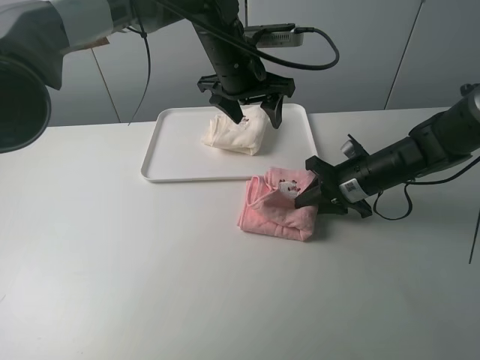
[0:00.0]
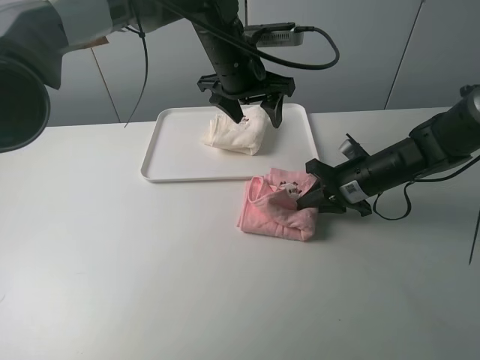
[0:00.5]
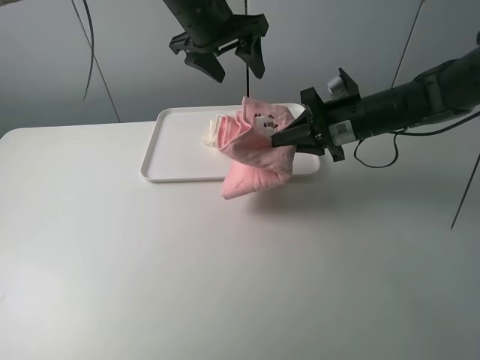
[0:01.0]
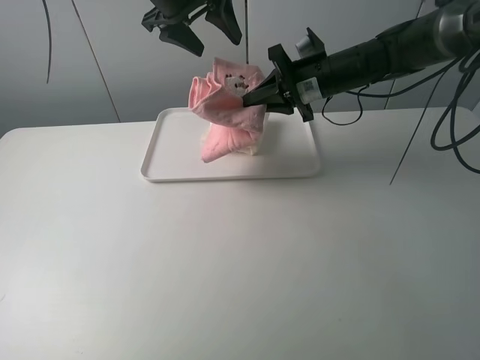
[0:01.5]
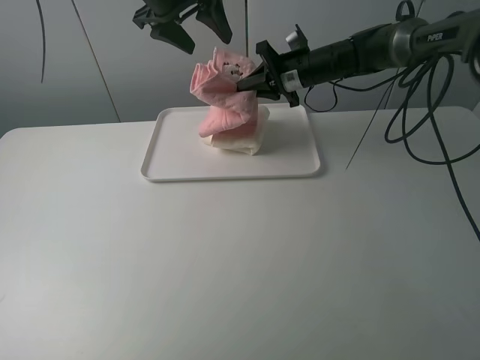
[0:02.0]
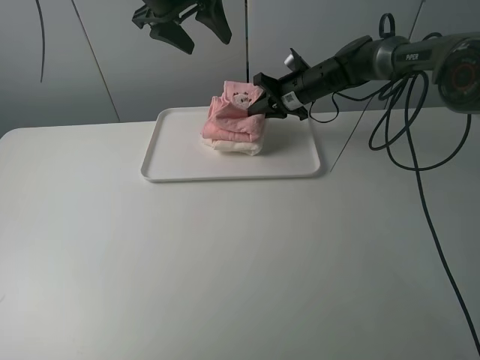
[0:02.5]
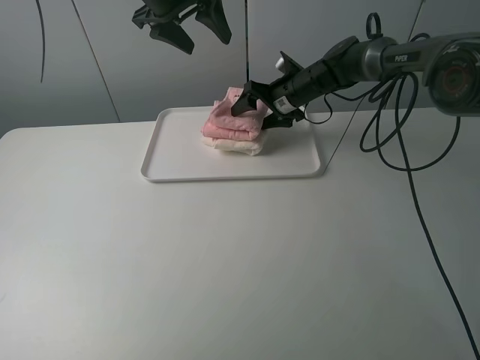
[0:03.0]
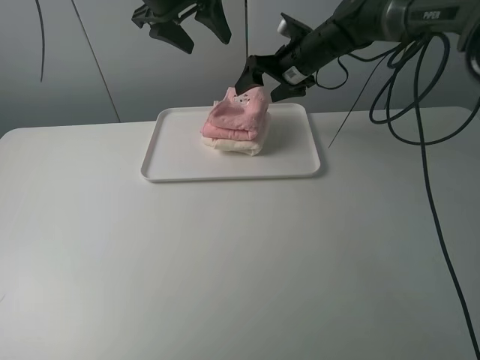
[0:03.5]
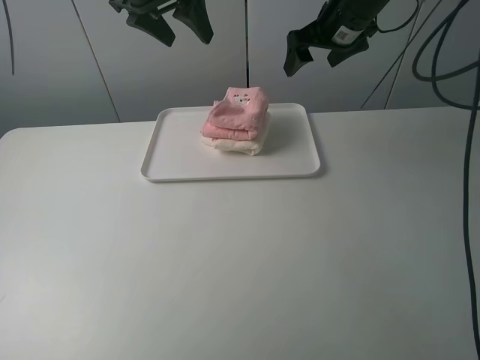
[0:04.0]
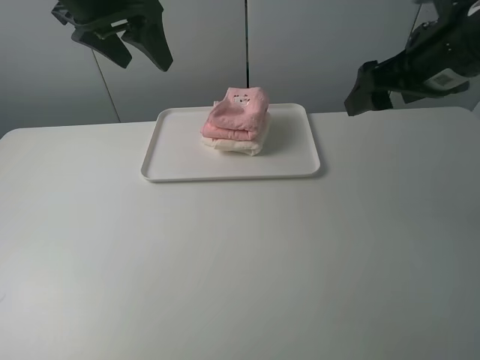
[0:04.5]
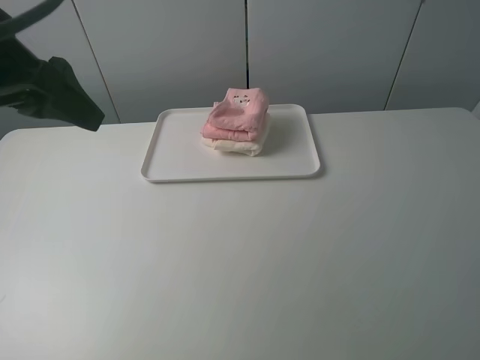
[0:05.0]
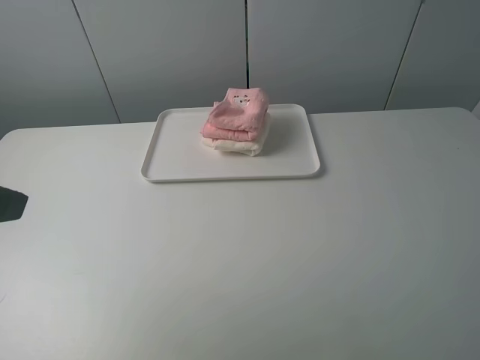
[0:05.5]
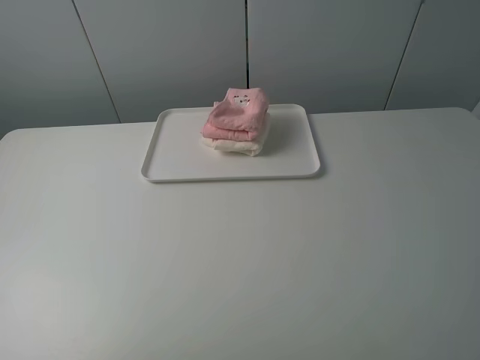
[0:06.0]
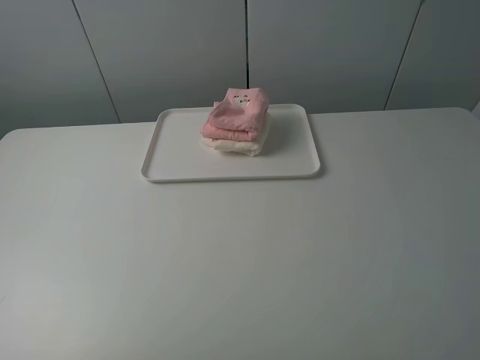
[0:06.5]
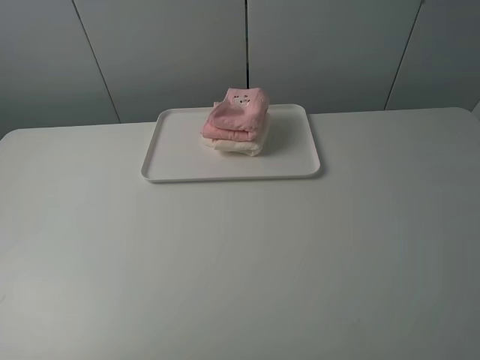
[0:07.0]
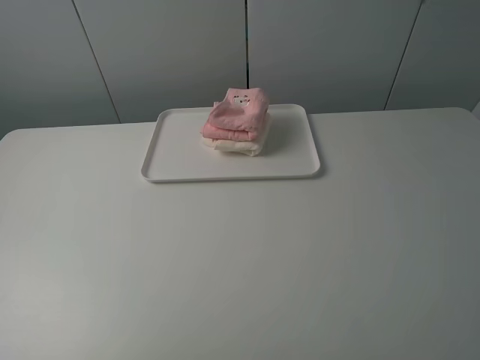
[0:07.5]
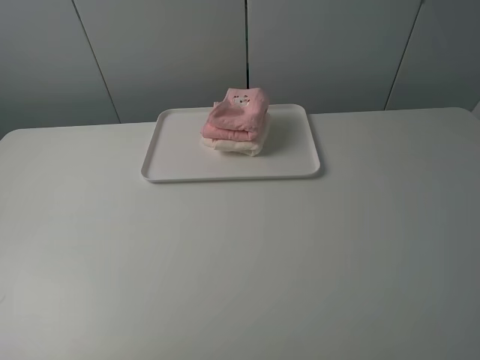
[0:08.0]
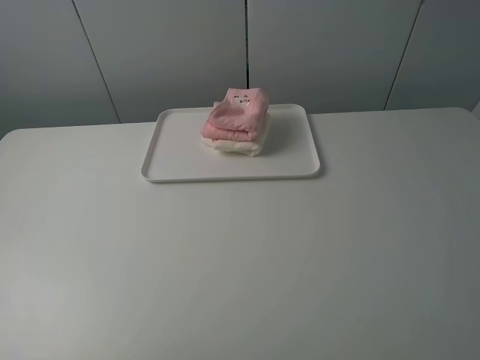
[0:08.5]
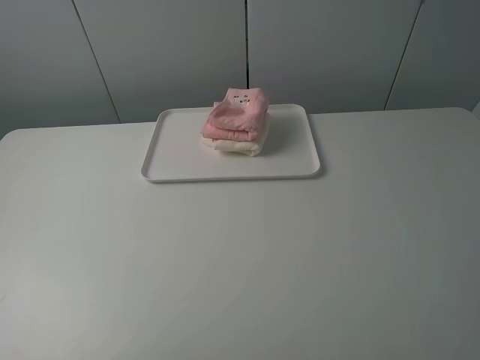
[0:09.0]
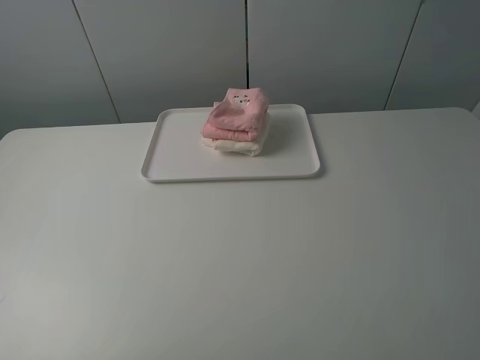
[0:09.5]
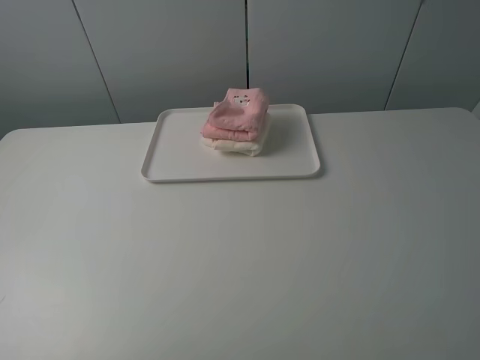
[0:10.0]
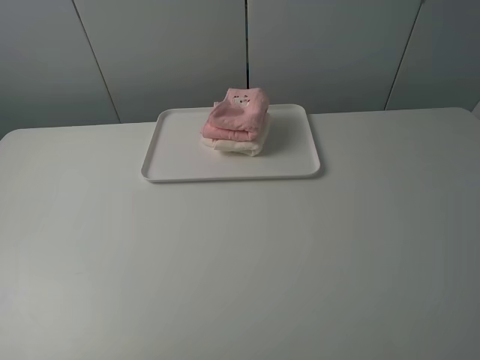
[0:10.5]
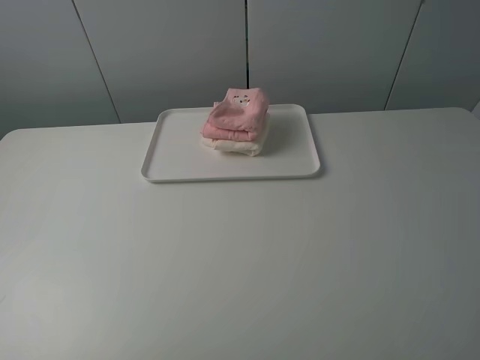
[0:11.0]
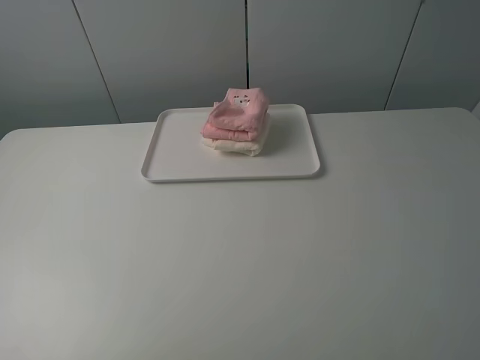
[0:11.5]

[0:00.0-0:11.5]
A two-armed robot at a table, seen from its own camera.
Task of the whole recording: fold one of the towels by two grippers and place it on the tray,then fold another towel by two grippers and place it on the folded towel.
Step, 0:00.5 to 0:03.5: Place the pink towel on the white towel with the right gripper.
0:00.0 to 0:02.0: The right gripper goes approximately 20 cm forward, upward and to the left; the left gripper heads to the left and upward, covering about 15 cm.
0:02.0 to 0:04.0: The right gripper shifts approximately 10 cm upward, and opens up.
0:04.0 to 0:06.0: The left gripper goes some 40 cm backward and to the left. The right gripper travels backward by some 50 cm.
0:09.5 to 0:11.5: Both grippers stay about where they are.
